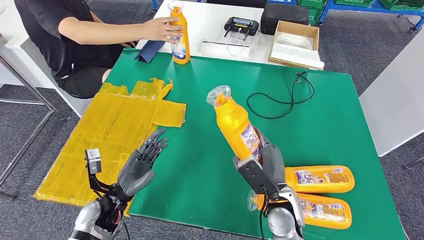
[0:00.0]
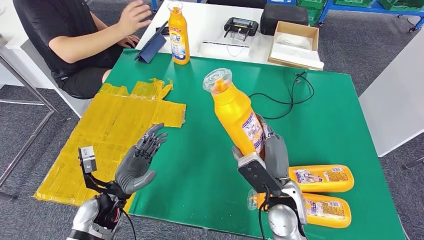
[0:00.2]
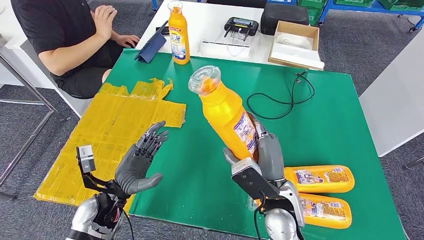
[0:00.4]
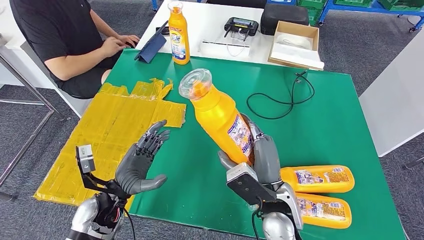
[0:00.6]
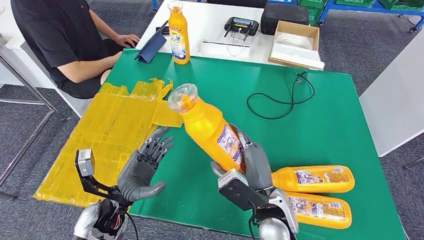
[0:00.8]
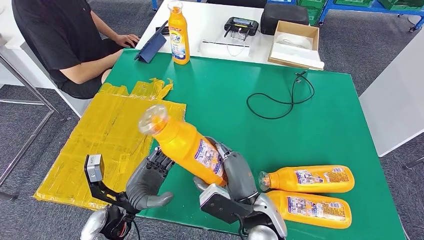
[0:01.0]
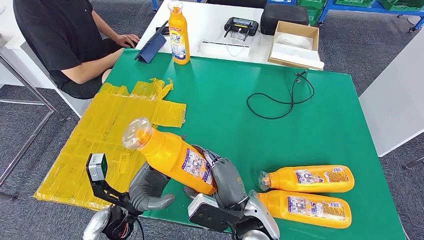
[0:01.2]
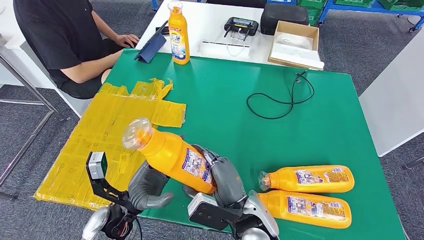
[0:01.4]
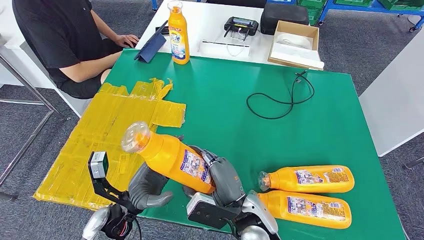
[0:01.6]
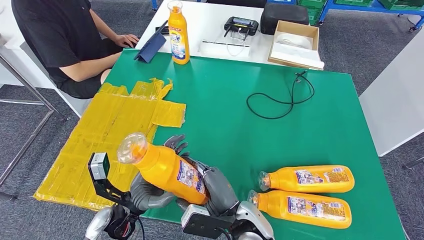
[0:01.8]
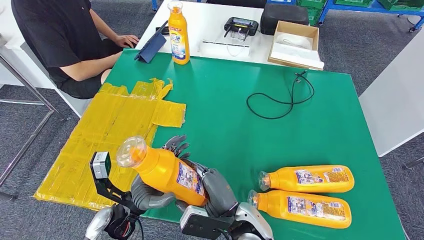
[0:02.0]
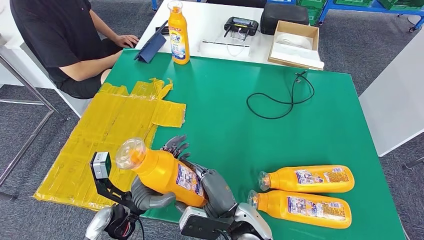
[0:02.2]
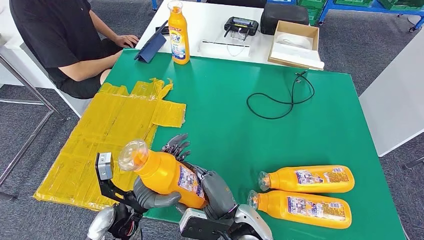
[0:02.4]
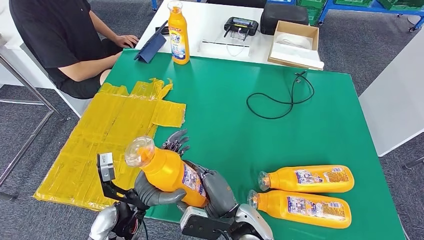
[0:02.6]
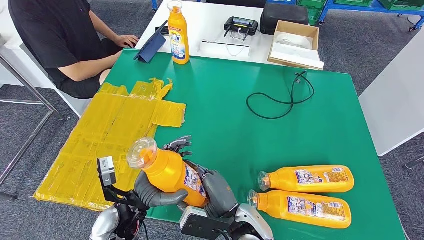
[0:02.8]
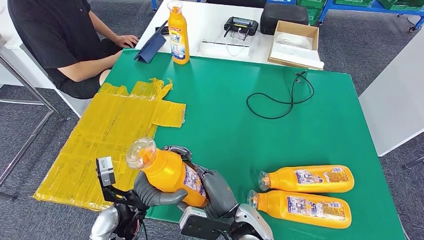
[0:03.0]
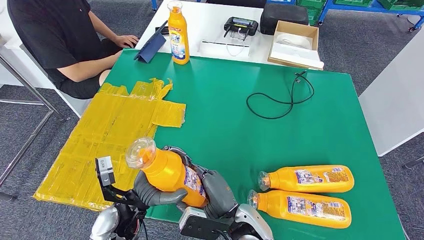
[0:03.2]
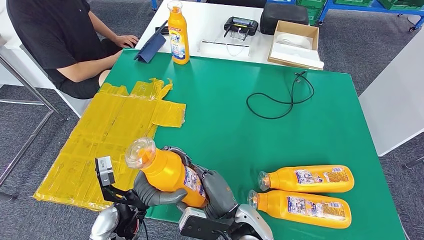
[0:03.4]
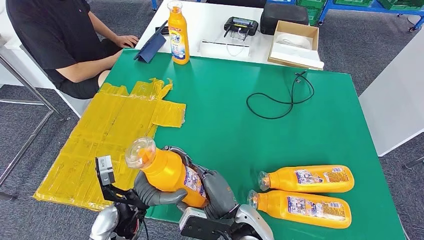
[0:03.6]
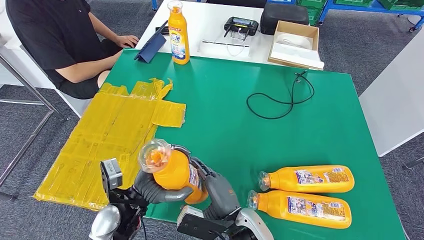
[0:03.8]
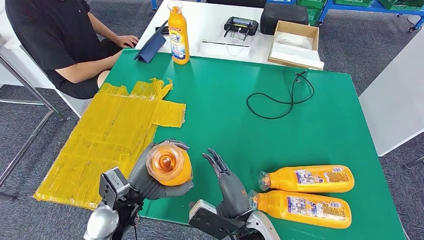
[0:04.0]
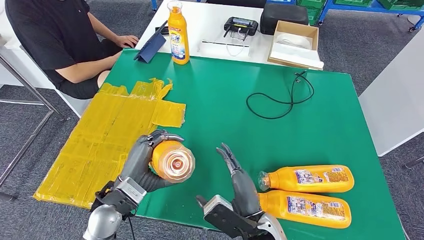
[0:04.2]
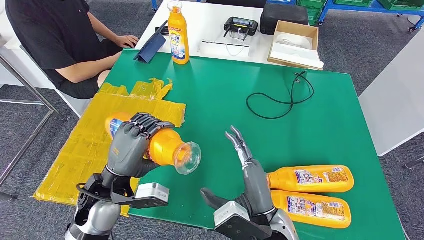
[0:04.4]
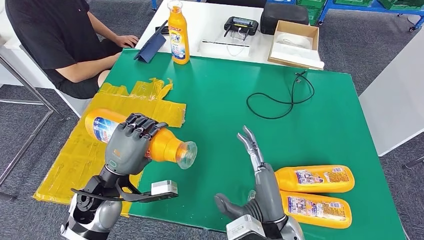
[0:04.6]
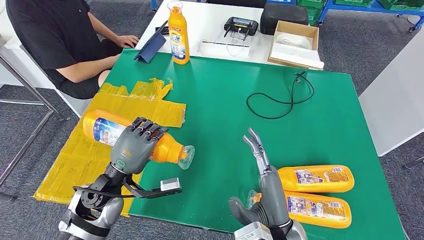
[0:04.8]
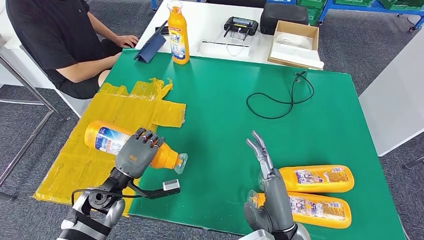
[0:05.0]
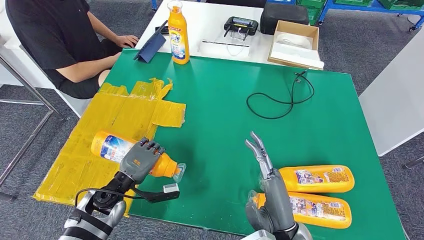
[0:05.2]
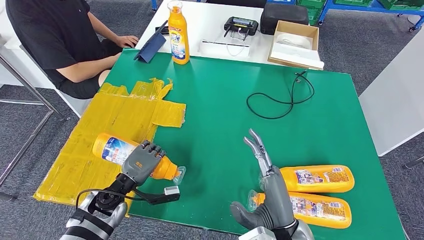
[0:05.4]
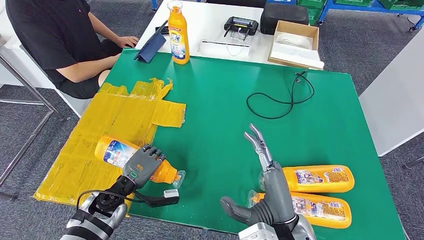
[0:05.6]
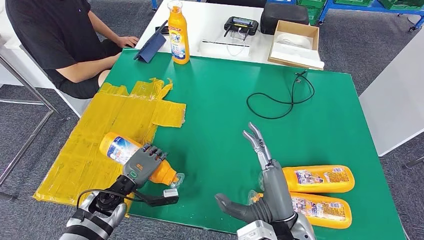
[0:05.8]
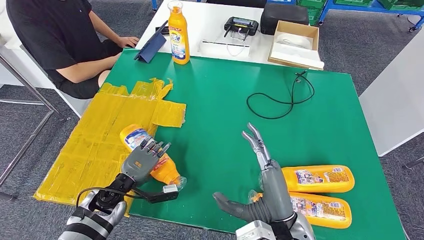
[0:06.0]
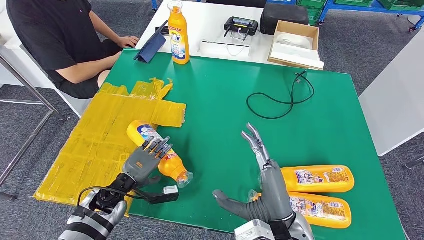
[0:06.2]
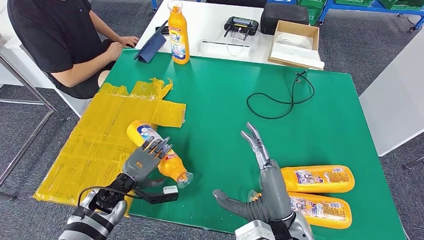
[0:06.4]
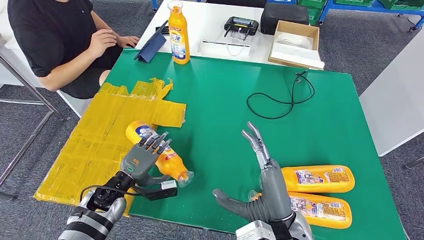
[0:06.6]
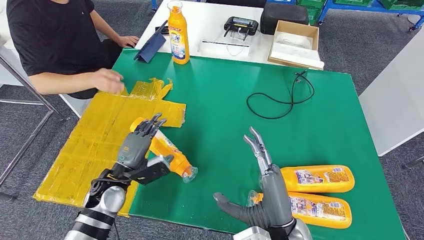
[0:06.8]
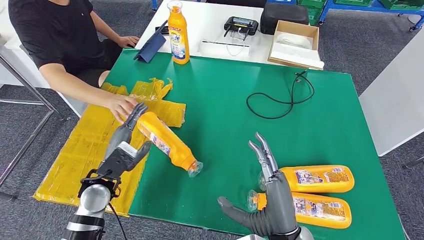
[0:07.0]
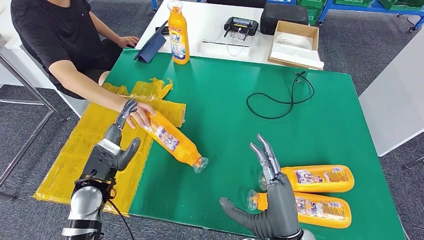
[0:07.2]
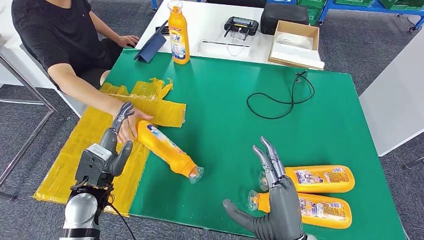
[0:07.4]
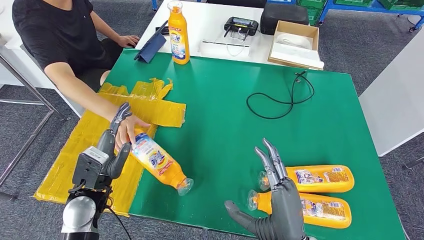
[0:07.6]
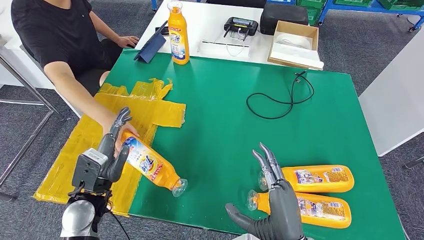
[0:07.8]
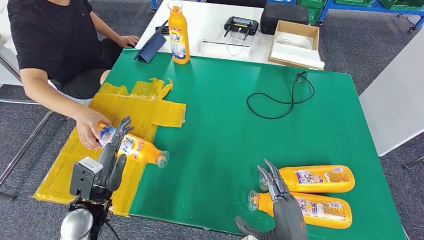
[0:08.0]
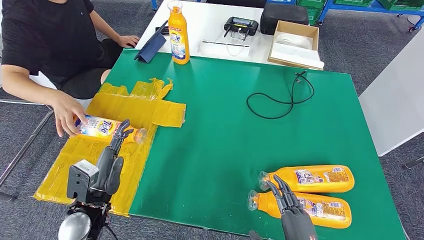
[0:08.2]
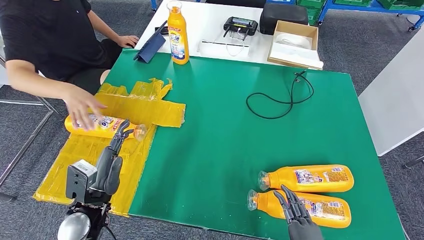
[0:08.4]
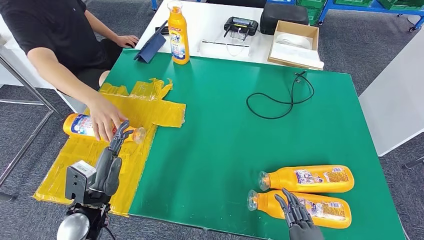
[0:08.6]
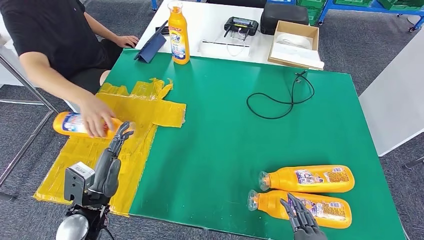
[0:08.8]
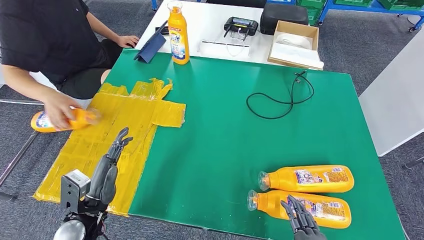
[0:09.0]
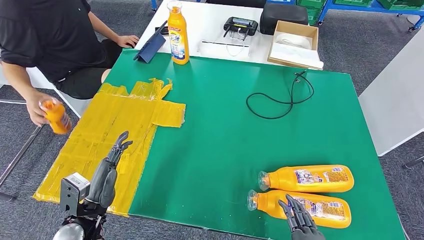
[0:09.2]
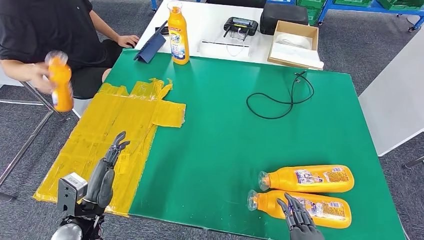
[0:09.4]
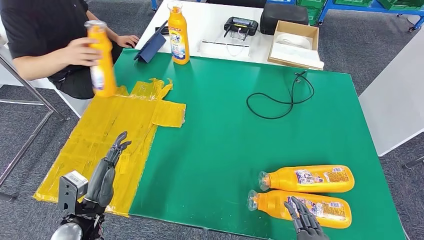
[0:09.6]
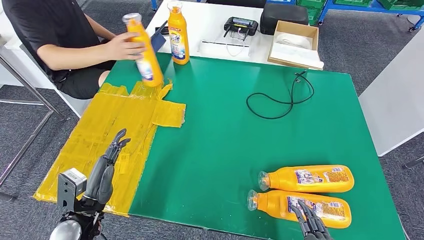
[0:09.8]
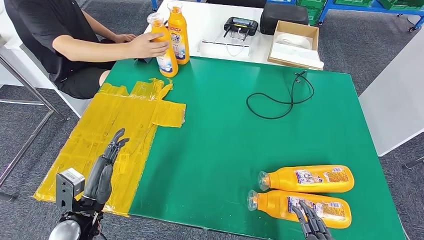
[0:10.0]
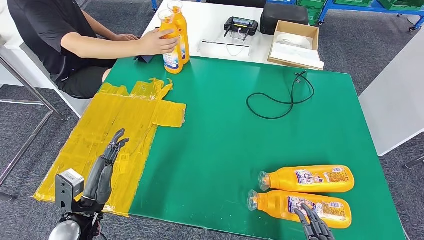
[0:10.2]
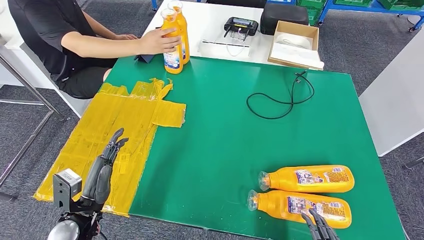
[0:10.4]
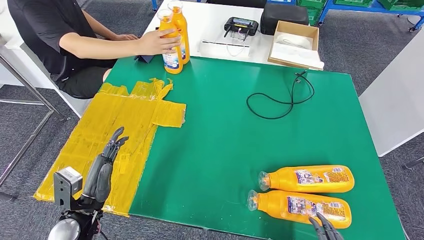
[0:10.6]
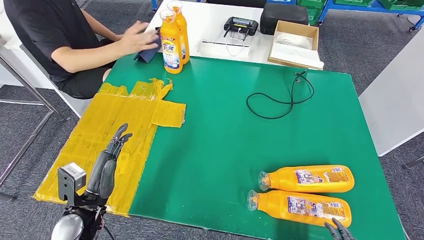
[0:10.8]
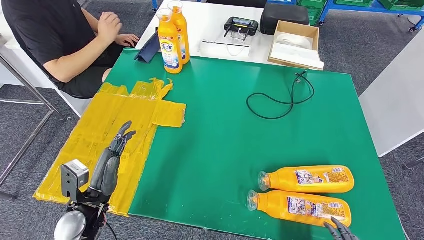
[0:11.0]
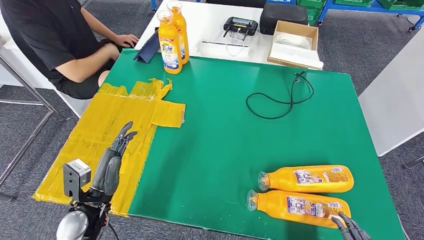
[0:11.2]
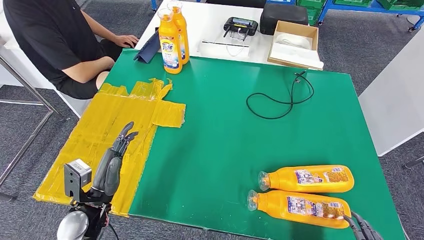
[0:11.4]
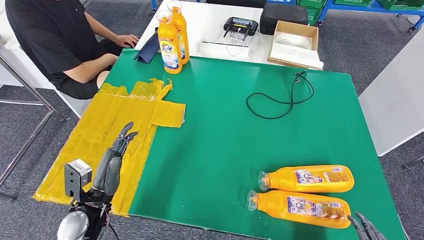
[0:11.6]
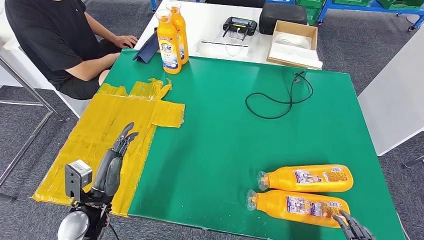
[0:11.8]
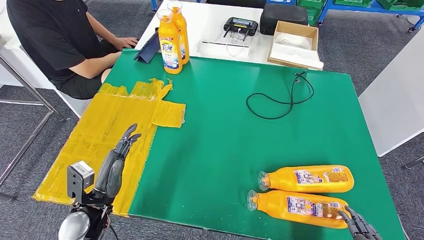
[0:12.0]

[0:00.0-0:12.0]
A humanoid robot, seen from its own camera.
Step, 0.0 to 4.0 s: Pick up the fast-moving consumer goods bottle from the table.
Step, 4.4 to 8.2 s: Flip the fast-moving consumer goods bottle to the front side.
1.6 to 3.0 s: There are only small adjustments of the hands.
3.0 to 4.4 s: The hands both shift upward by approximately 5 cm.
4.4 to 6.0 s: The left hand shifts some 15 cm downward.
6.0 to 7.6 s: The left hand travels upward by approximately 10 cm.
7.6 to 9.0 s: The right hand is displaced backward, to the right and downward by roughly 15 cm. Meanwhile the left hand moves roughly 5 cm.
9.0 to 10.4 s: The hands make only small movements.
10.4 to 12.0 s: The right hand shifts about 10 cm to the right.

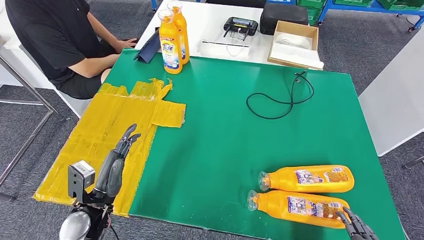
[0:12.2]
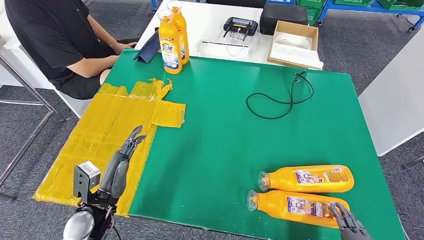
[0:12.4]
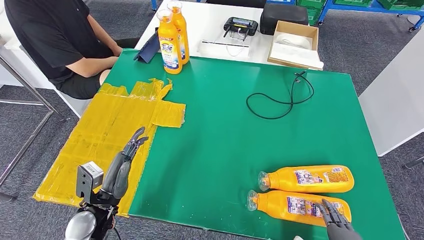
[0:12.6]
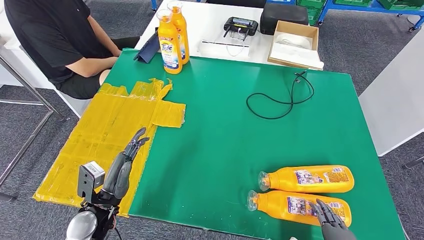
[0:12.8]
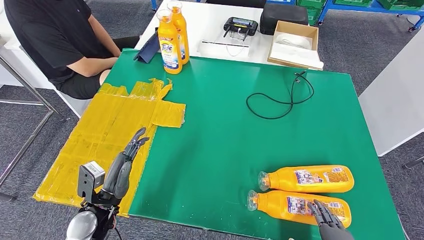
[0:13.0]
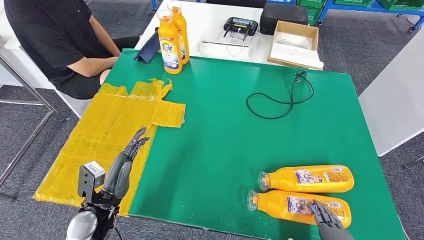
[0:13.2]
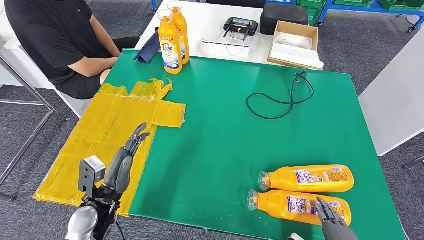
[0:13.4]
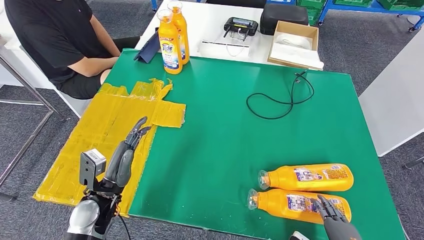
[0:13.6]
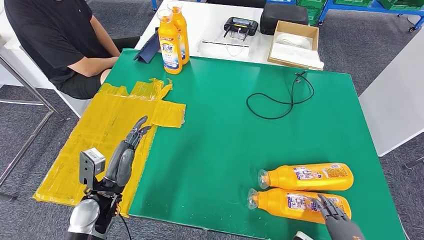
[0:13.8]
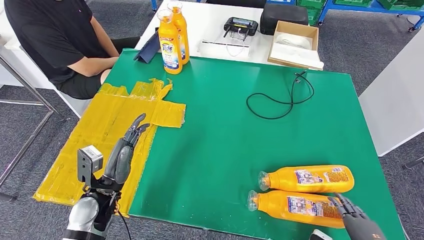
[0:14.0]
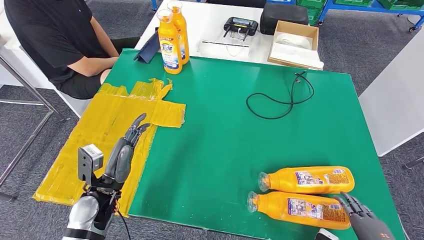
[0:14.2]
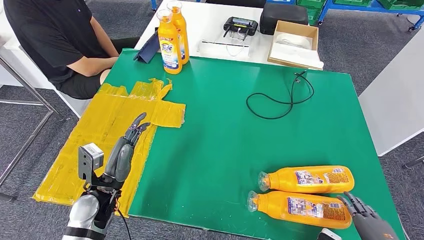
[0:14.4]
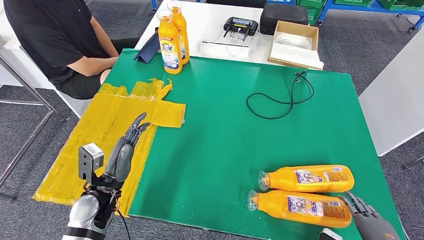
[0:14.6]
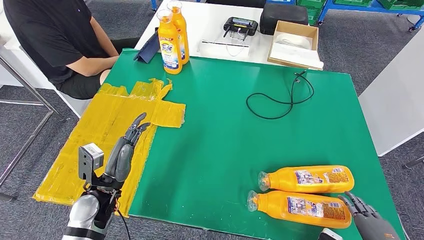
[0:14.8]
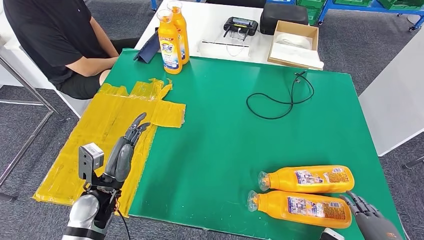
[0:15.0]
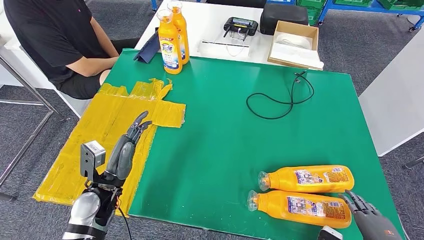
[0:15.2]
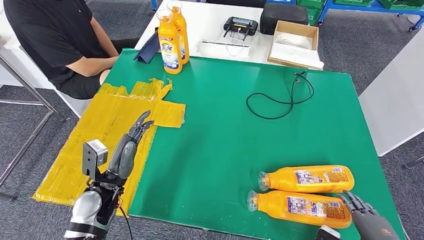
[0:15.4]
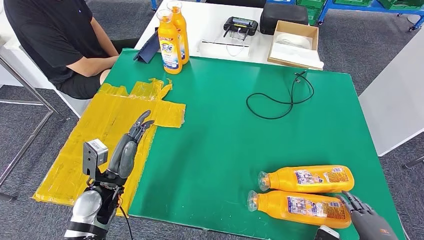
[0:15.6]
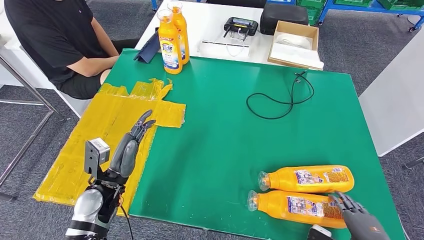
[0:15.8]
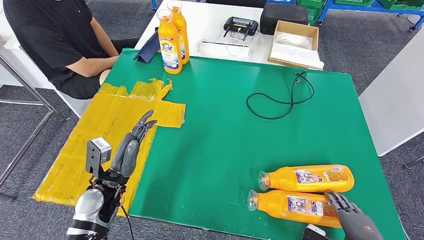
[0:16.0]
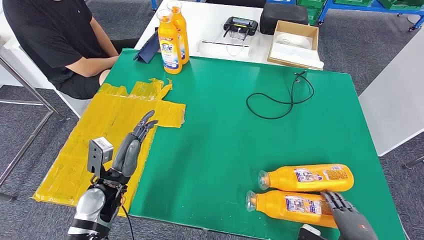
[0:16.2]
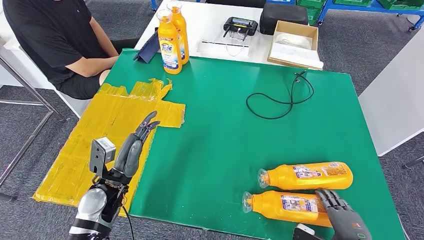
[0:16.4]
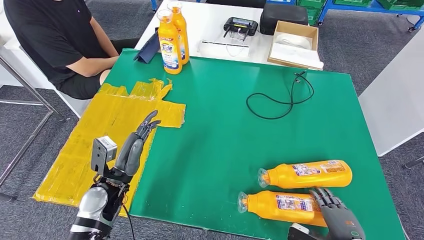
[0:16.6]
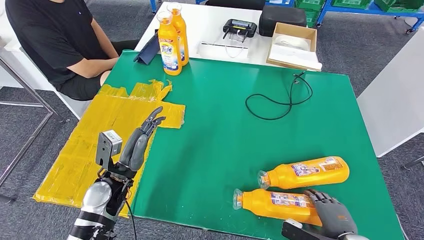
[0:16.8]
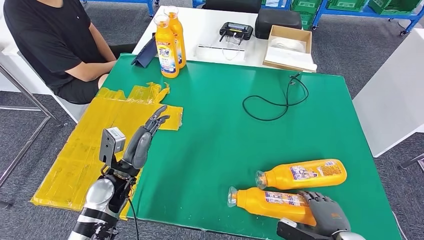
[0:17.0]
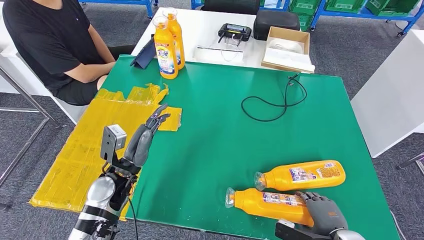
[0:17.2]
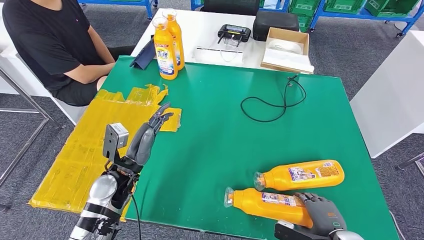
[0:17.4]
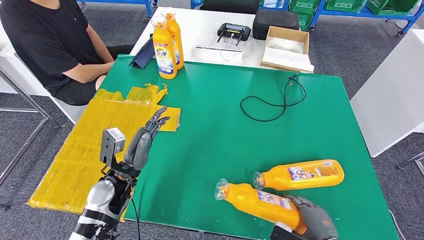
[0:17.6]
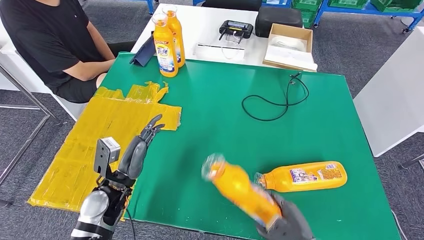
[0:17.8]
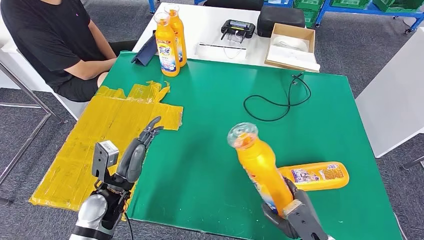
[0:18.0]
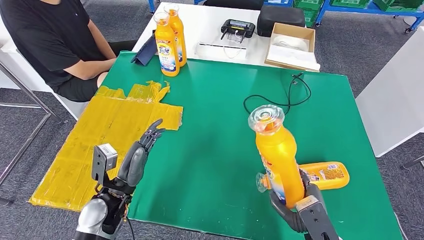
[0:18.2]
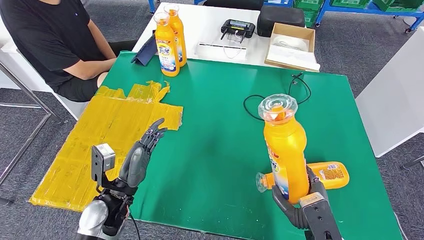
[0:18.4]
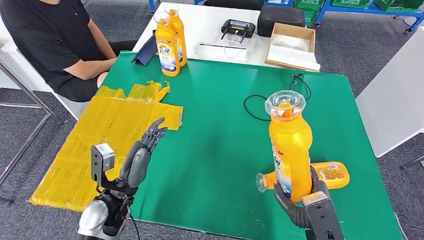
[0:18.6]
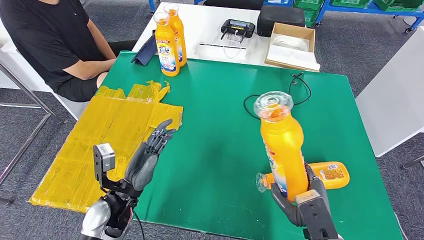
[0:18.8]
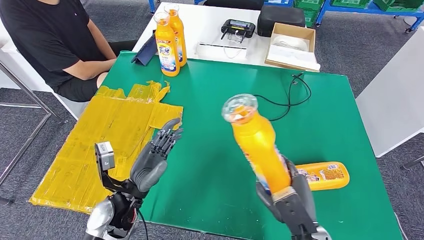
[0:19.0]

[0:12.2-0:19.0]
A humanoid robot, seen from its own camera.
12.2 to 13.6 s: The right hand ends up roughly 5 cm from where it was.
13.6 to 15.0 s: The right hand is displaced to the right by some 5 cm.
15.0 to 16.2 s: The right hand shifts by about 5 cm.
